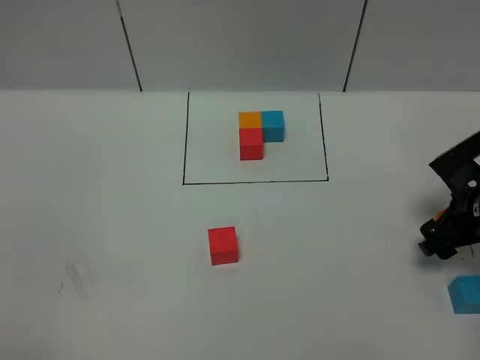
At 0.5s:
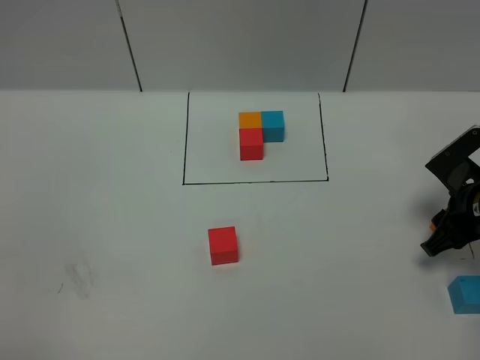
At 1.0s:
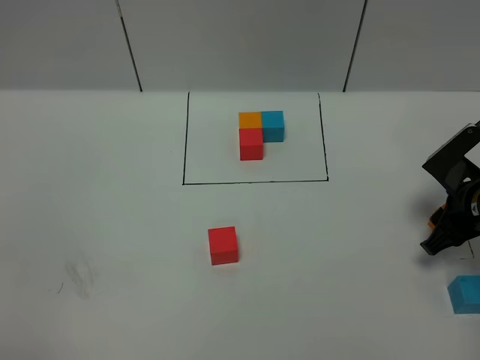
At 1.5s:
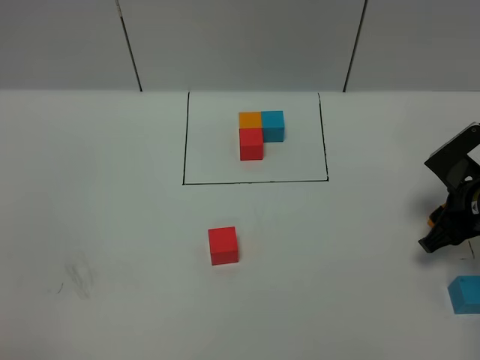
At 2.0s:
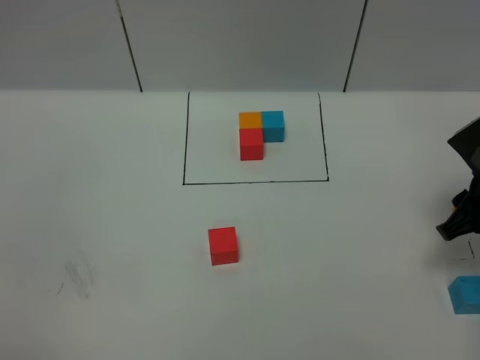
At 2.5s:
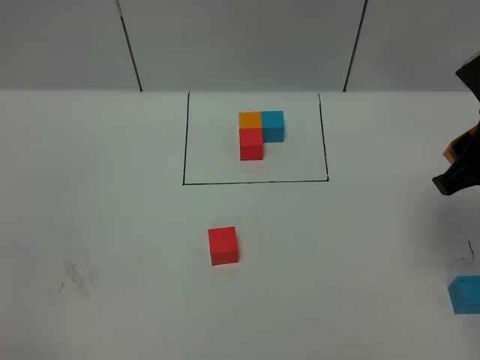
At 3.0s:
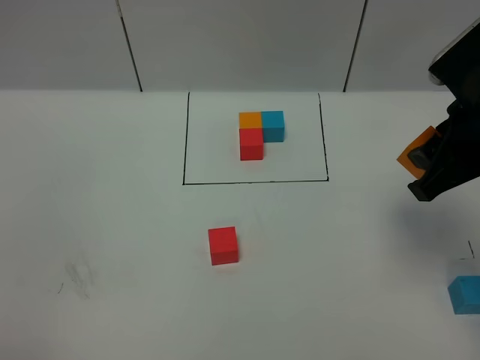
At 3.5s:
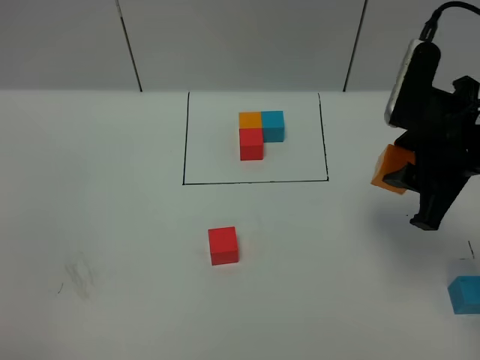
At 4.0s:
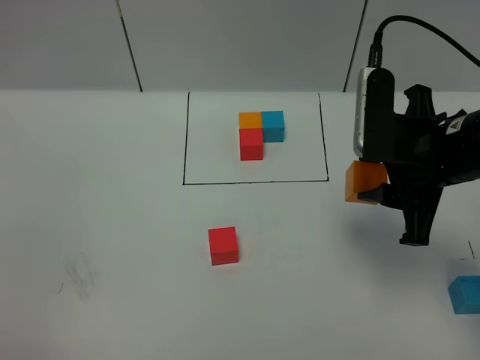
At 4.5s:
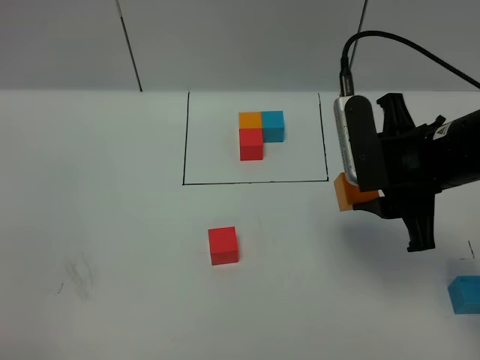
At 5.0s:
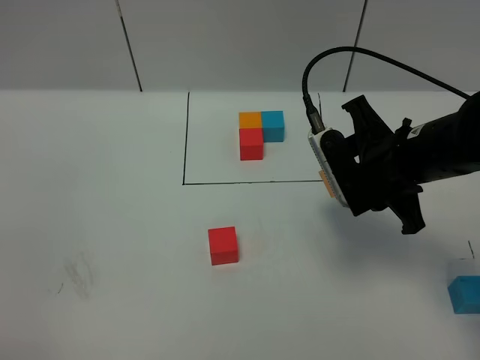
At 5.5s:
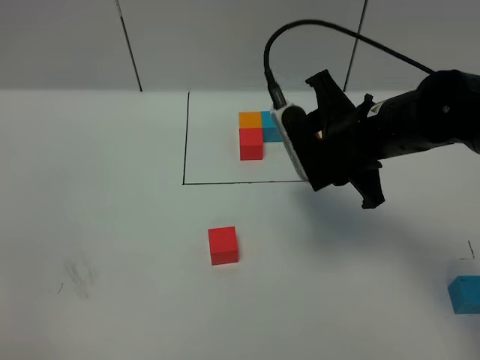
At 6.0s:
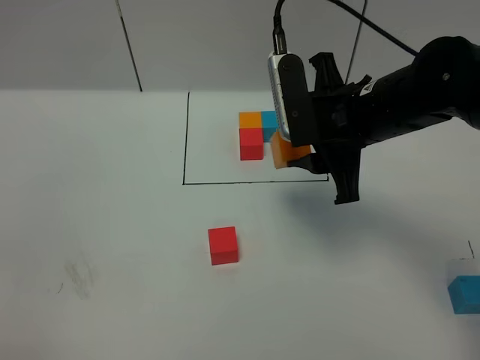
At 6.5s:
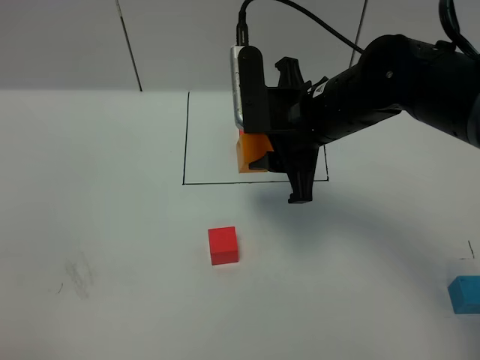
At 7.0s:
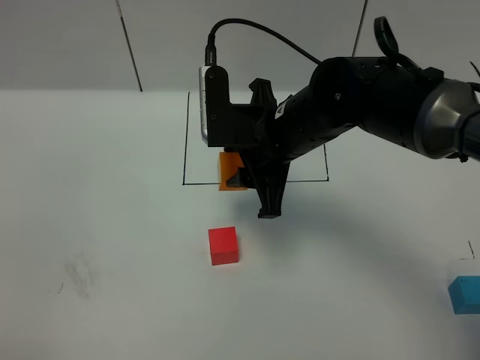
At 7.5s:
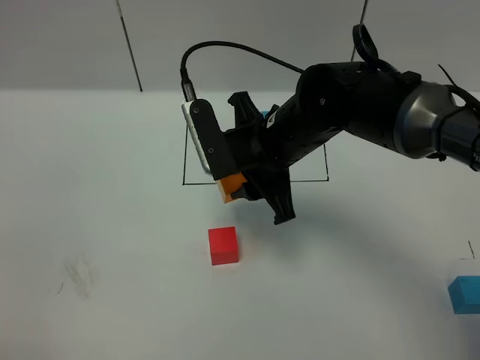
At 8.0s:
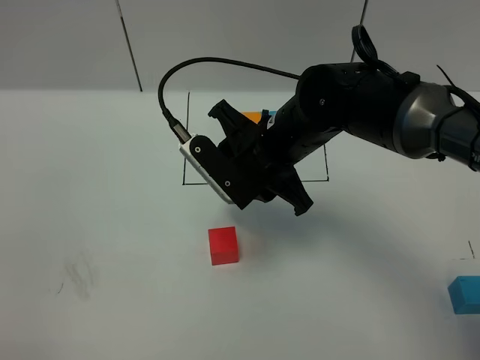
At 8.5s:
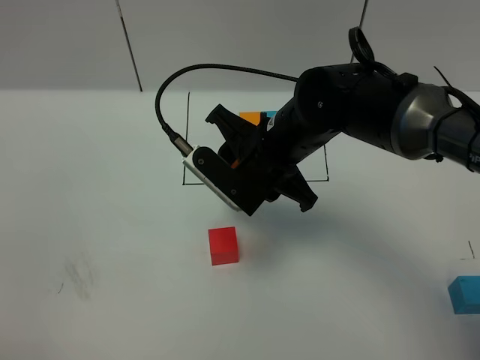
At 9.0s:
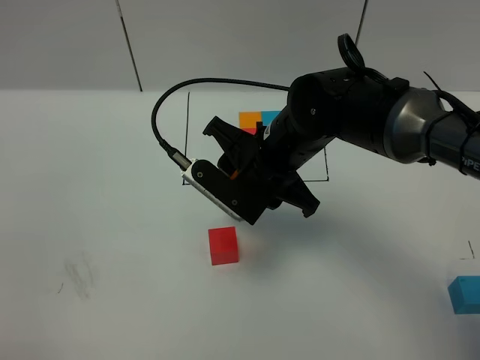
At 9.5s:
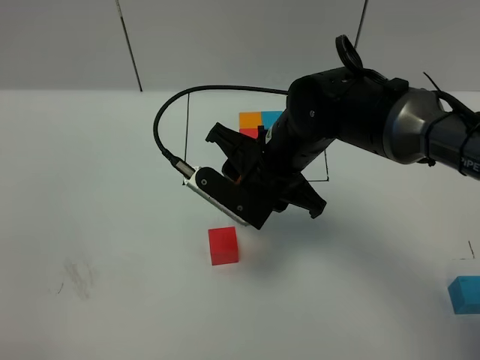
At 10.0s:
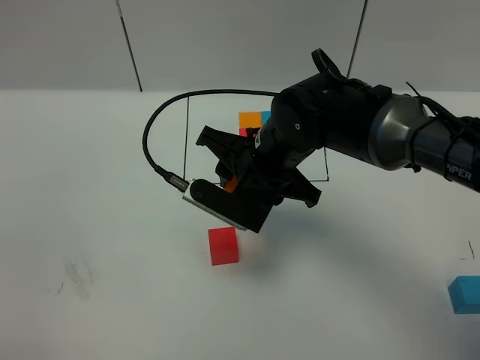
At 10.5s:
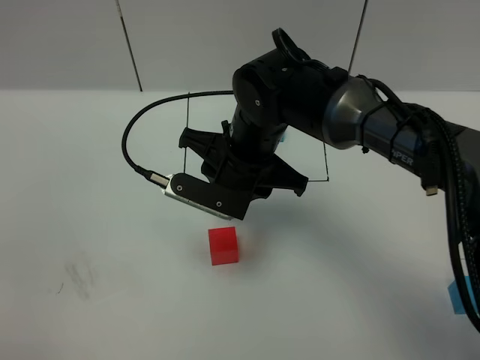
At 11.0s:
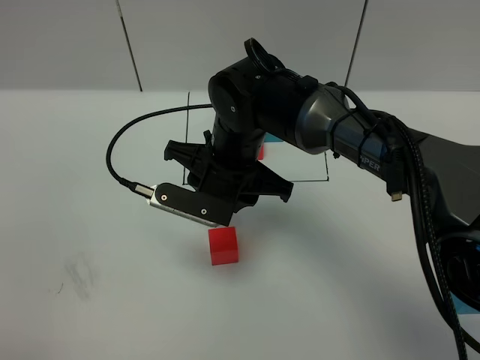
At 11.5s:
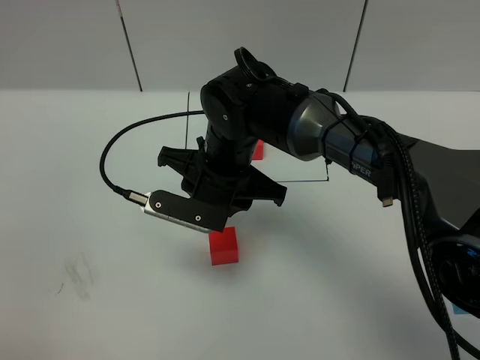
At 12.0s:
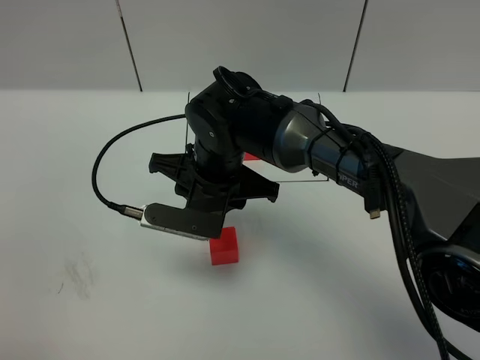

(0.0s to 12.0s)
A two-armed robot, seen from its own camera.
Task of the whole recording: According to the building block template in front, assemble the scattered blocks together.
0.0s - 2.0s: The right gripper heads upward, covering some 5 cm, and closes.
2.0s - 4.0s: The right gripper shifts roughly 15 cm to the left and upward.
4.0s - 6.0s: The right gripper heads to the left and forward, covering approximately 10 cm.
6.0s - 8.0s: The right gripper is displaced to the left by roughly 10 cm.
10.0s - 12.0s: The right gripper is displaced to the left by about 5 cm.

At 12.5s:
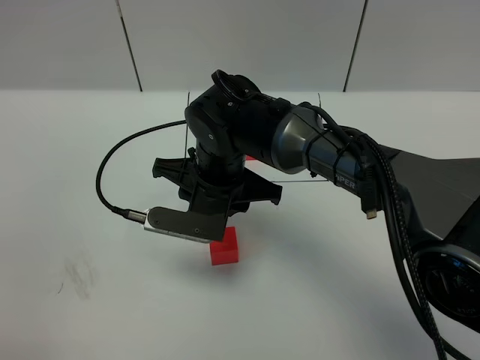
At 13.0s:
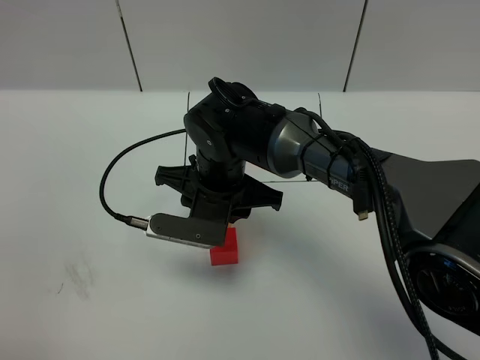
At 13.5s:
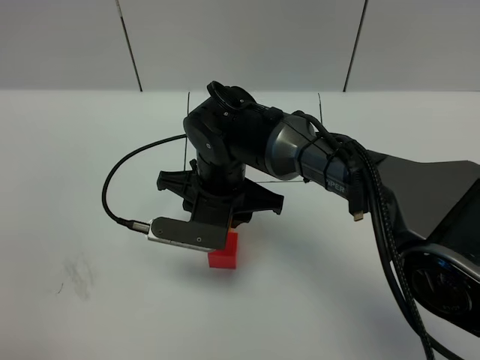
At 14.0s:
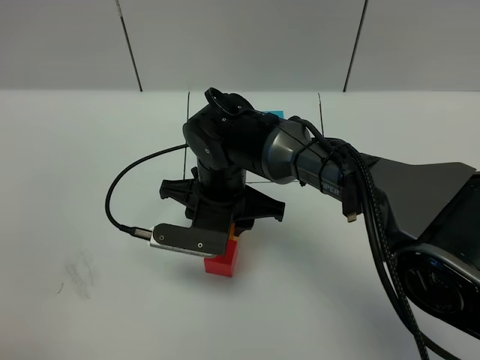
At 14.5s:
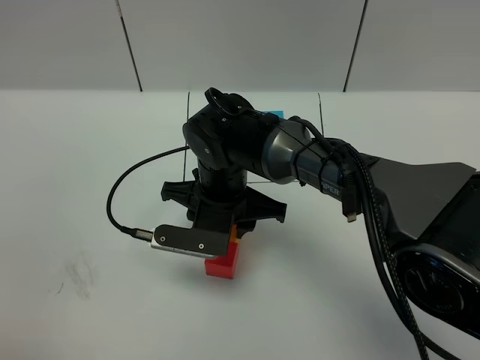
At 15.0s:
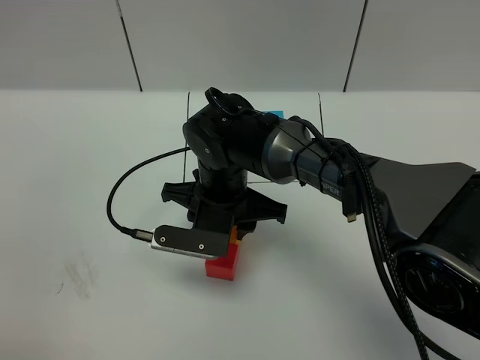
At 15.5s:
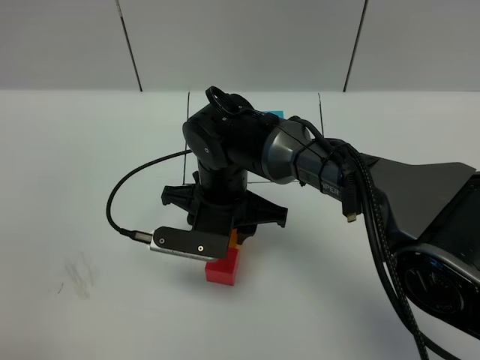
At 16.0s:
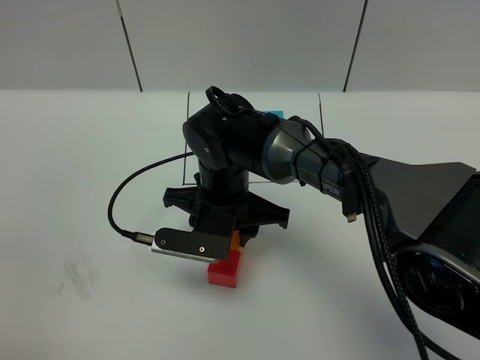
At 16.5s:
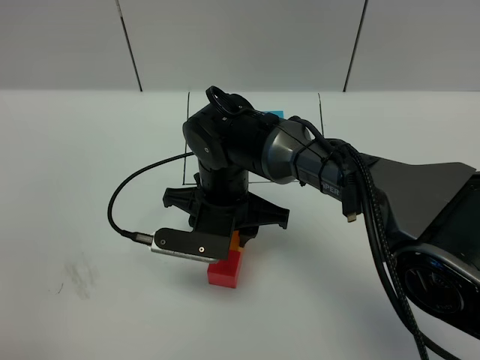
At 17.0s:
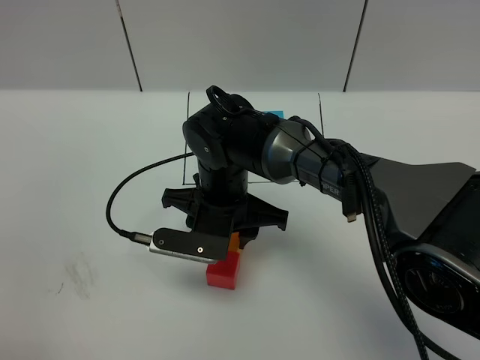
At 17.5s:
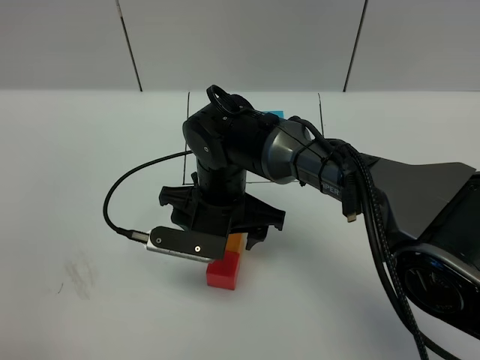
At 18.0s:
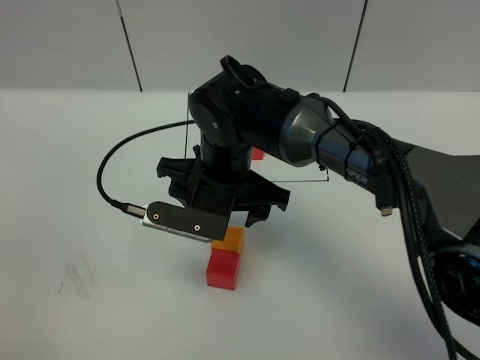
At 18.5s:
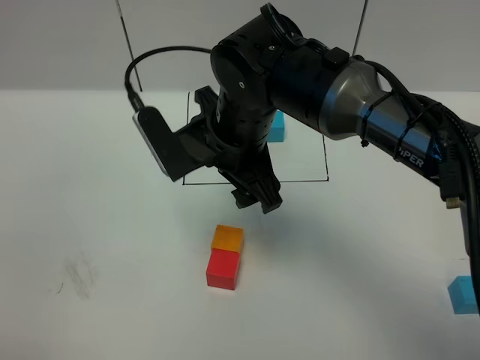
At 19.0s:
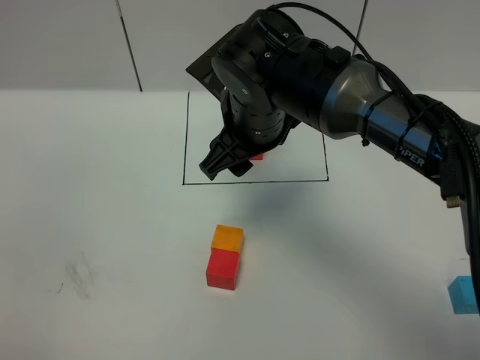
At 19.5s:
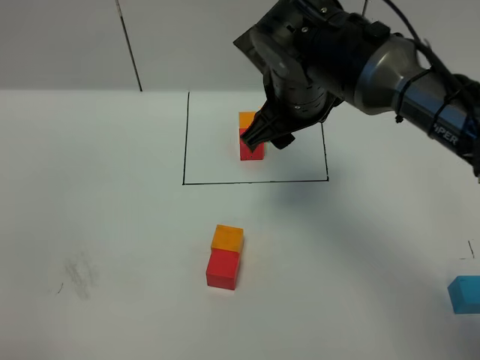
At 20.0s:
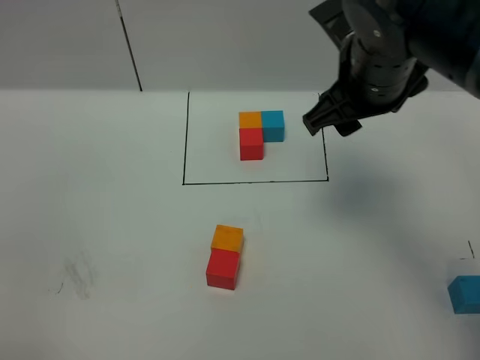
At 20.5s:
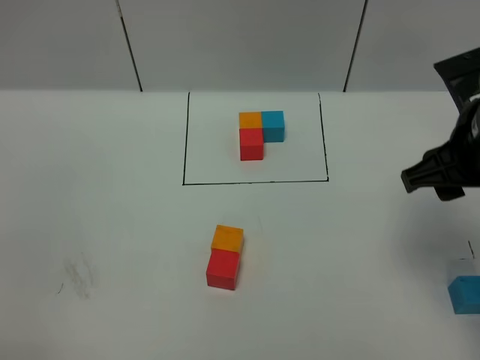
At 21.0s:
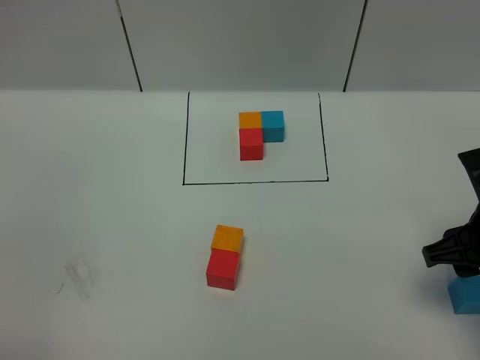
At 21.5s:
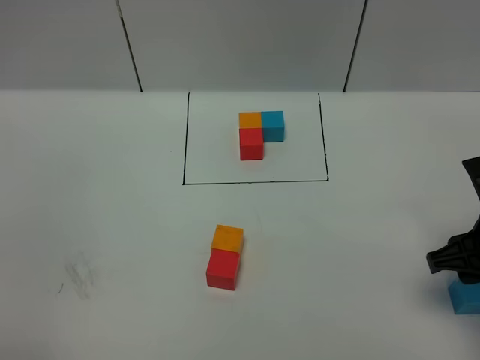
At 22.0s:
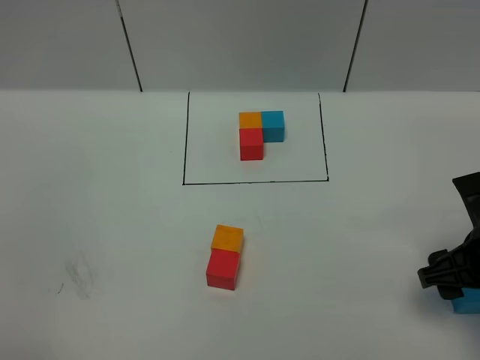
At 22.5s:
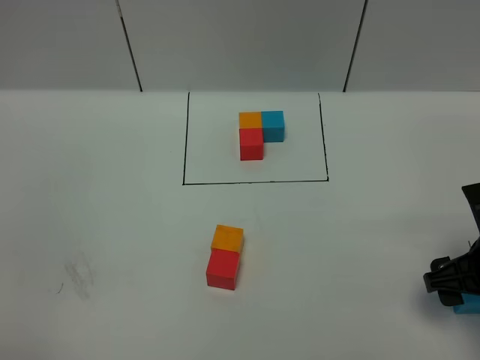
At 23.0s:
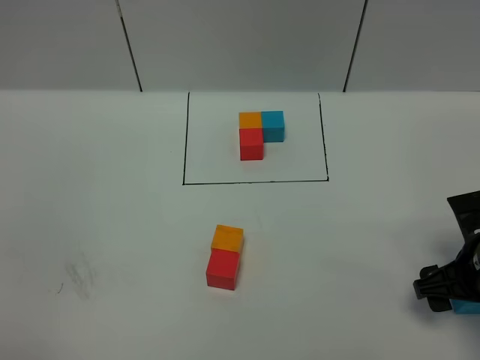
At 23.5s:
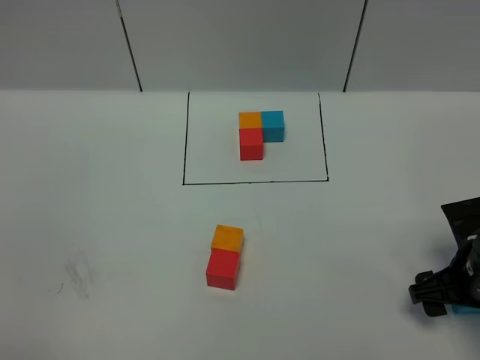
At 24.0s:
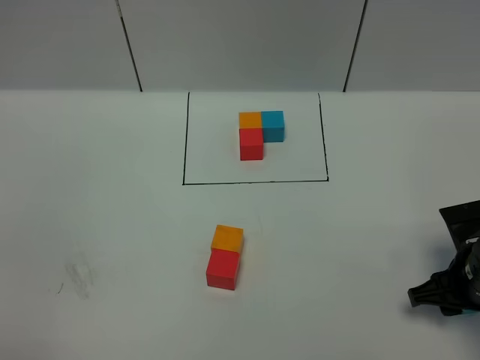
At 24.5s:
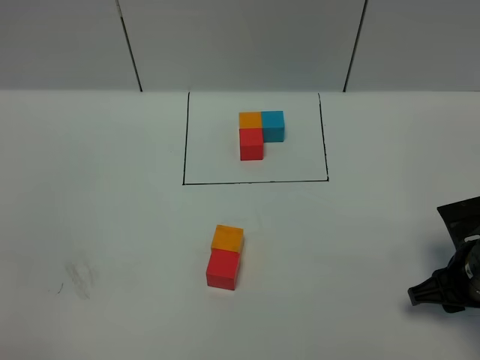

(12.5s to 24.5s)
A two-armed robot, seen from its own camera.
Task of the whole recording: According to the building block template in front, assemble the scattered blocks together.
Step, 12.5s - 18.0s: Put the orange cube in the front of the red cube.
12.5s - 14.5s: The grippers move only a little.
14.5s - 16.5s: Neither gripper changes place.
16.5s - 18.5s: The right gripper heads upward, covering some 10 cm, and opens its fingers.
18.5s - 20.5s: The right gripper is displaced to the right by approximately 20 cm.
20.5s - 22.5s: The right gripper goes some 15 cm downward and backward.
22.5s - 24.5s: The right gripper heads downward, covering some 5 cm, and closes its fingers.

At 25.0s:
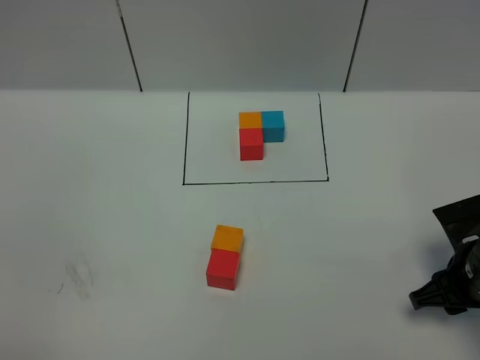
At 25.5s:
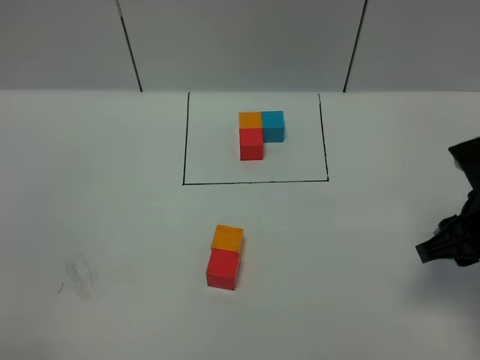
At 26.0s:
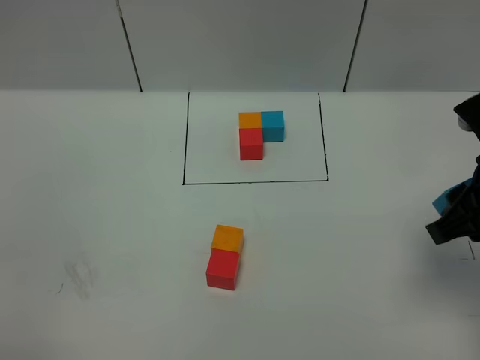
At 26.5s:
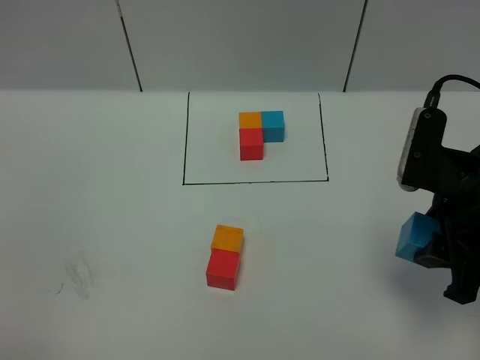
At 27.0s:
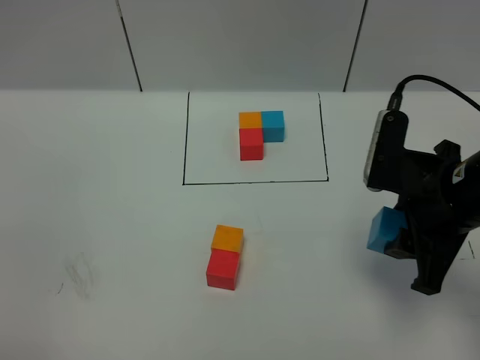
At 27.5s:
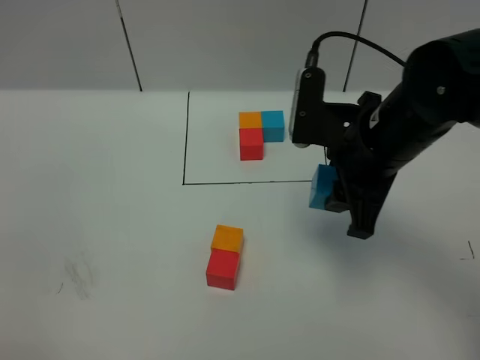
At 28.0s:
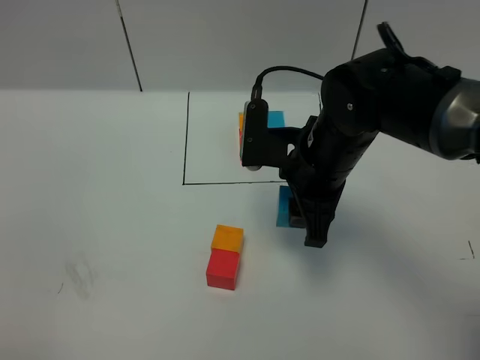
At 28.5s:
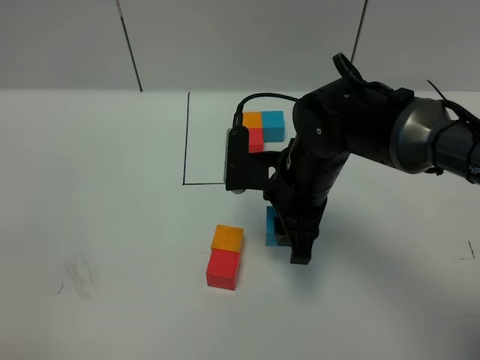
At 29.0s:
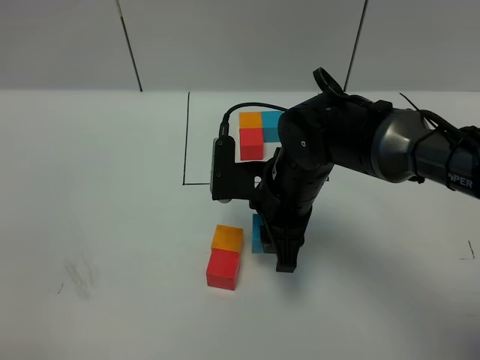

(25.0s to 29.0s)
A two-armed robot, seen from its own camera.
Task of the whole recording: According to the building block template in front, assemble the scattered blocks together.
25.0s - 27.0s: The right gripper heads upward and to the left, covering roughly 15 cm.
27.0s - 29.0s: The right gripper moves to the left, downward and forward, roughly 20 cm.
